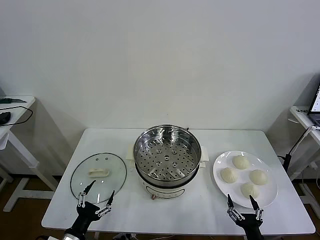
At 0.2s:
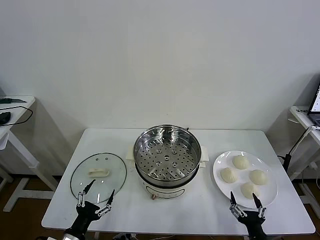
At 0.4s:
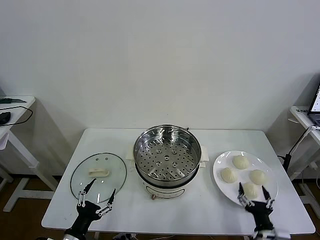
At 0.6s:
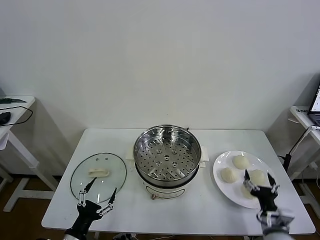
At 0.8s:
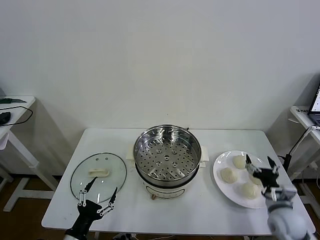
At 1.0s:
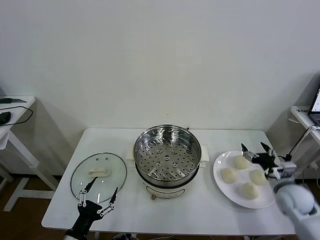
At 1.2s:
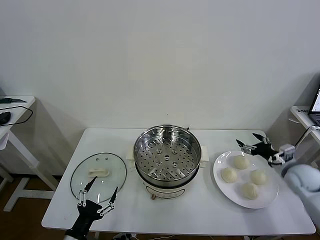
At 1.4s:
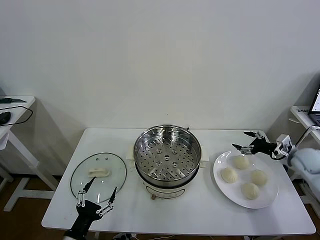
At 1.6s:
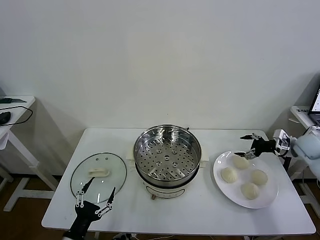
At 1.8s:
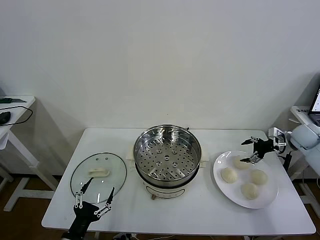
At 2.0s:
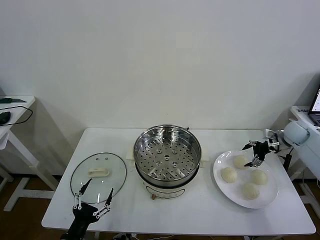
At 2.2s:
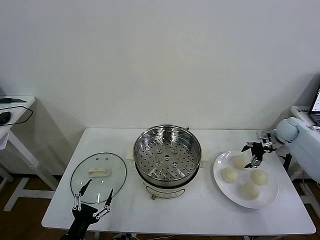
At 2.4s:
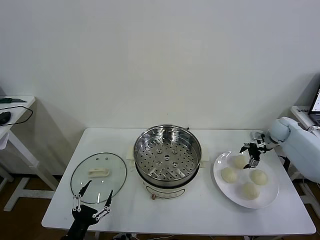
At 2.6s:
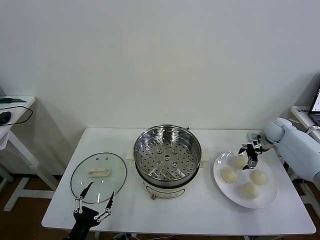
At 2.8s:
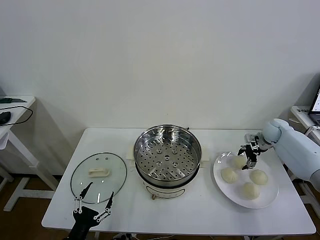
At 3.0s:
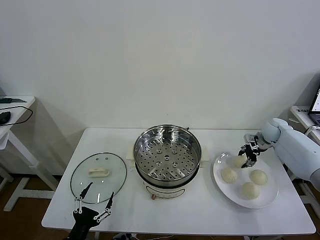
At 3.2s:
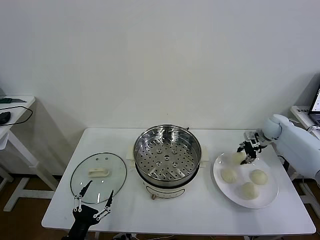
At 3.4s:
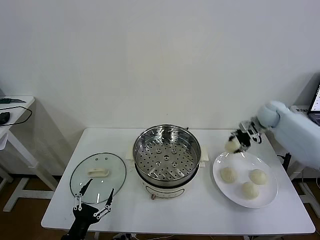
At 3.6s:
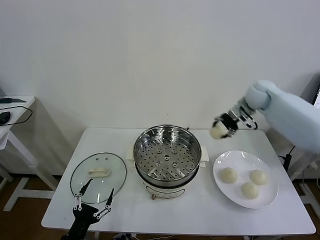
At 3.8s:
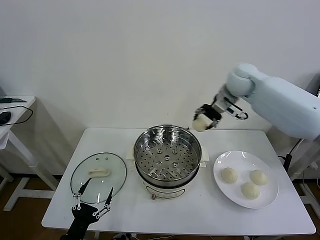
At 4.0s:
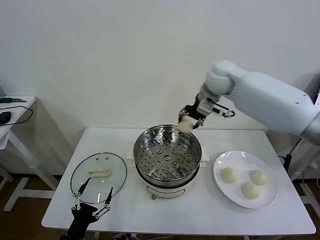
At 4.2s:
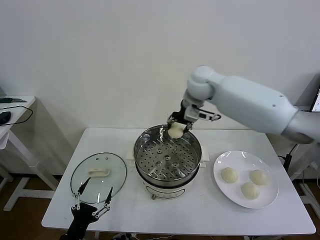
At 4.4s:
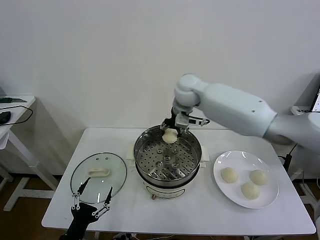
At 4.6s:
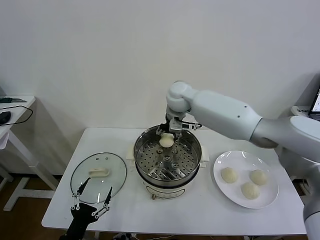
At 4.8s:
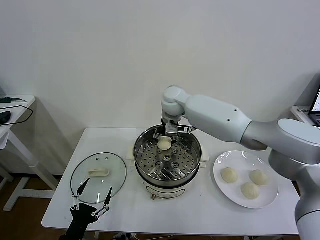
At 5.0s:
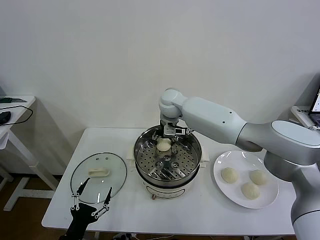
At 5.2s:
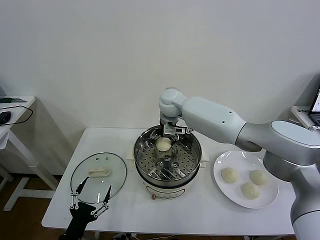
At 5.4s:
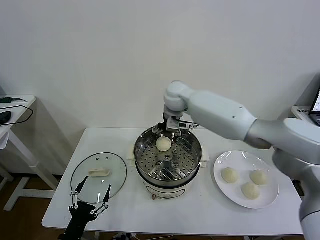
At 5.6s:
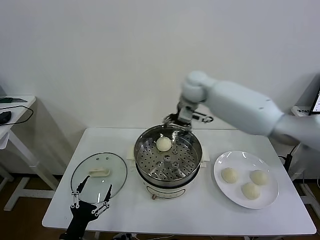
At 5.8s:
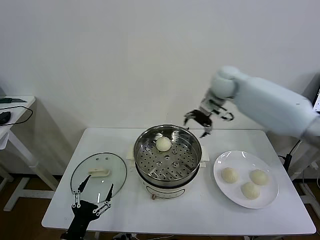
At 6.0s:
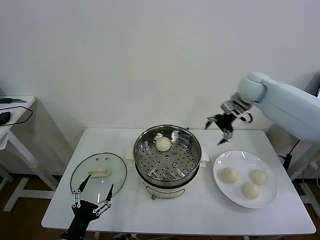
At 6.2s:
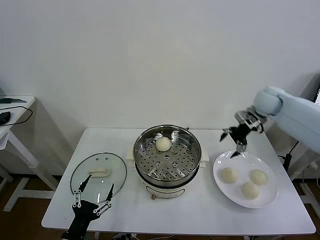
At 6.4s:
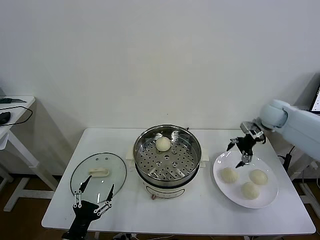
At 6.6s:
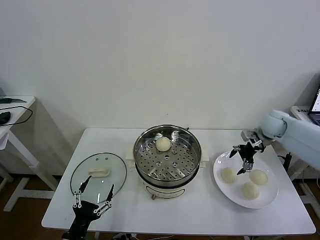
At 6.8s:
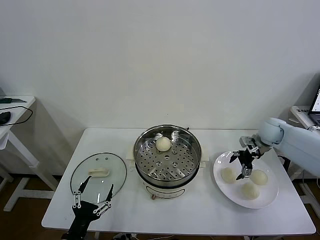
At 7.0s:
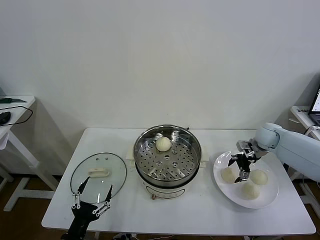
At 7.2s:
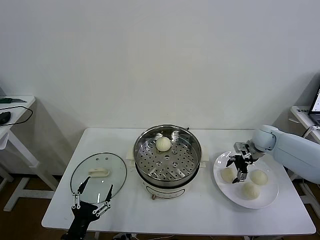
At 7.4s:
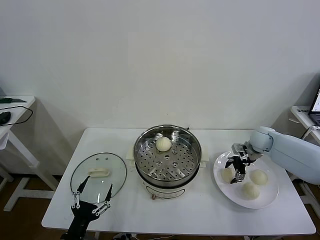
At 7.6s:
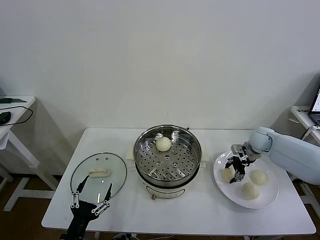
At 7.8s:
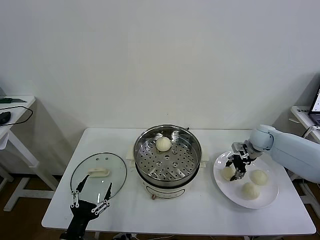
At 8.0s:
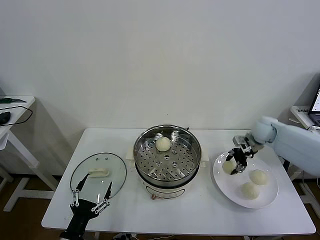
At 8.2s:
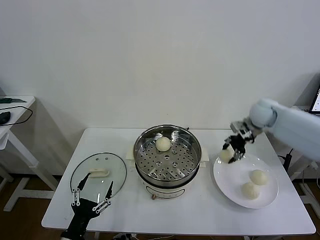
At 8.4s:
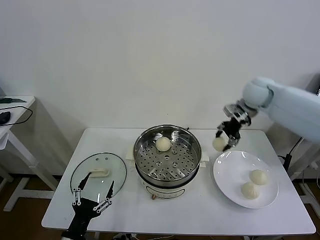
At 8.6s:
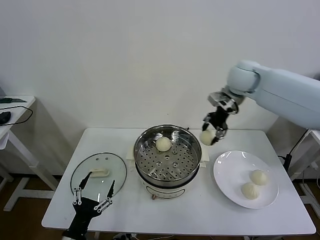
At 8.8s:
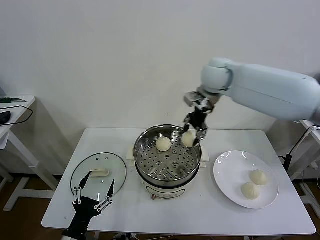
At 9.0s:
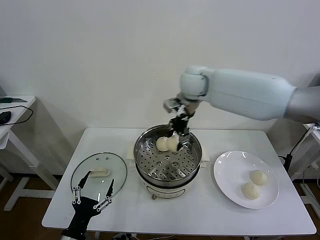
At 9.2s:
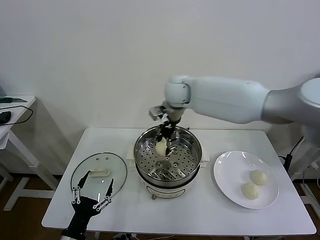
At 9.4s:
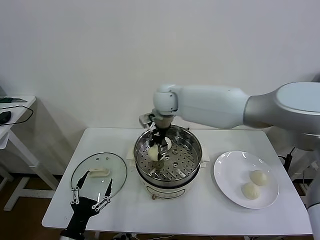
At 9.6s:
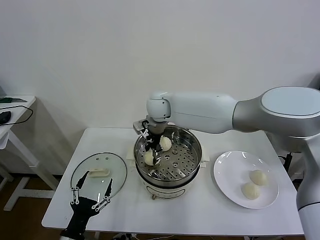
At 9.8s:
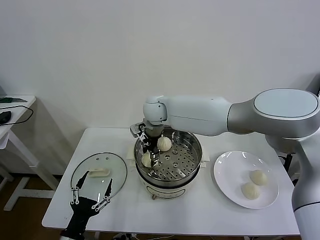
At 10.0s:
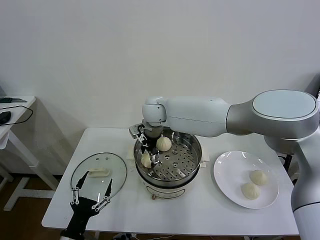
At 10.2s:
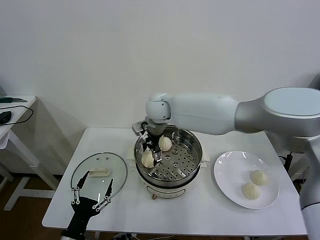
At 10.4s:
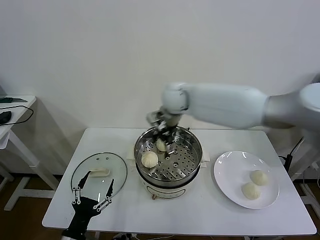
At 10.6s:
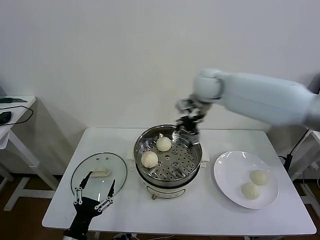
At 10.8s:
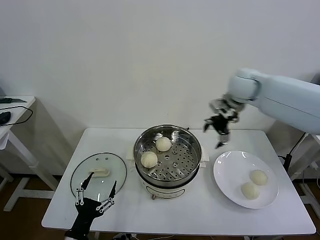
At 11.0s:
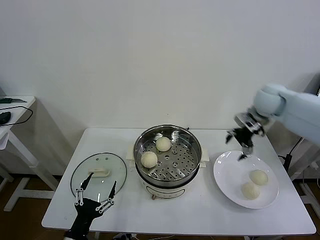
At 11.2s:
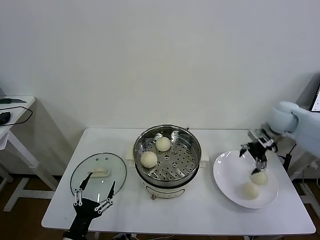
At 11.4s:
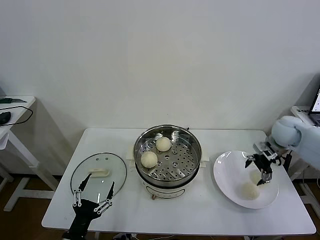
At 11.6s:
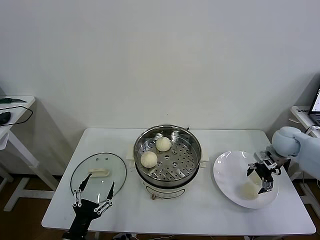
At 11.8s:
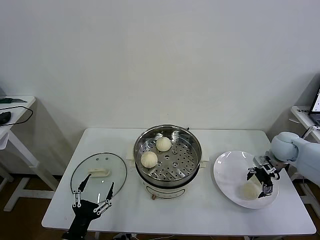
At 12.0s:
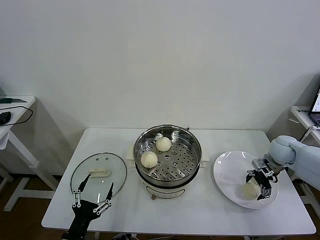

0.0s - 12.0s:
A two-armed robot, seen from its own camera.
Task of the whole recording: take steamed baozi put them in steamer then cover it.
Step, 0.0s - 3.0s: Grasp the baozi in the plate with right gripper.
Step, 3.2s - 5.0s: Place the baozi on the steamer with right gripper.
Step, 5.2s - 7.6s: Grasp the baozi in the plate with right gripper.
Step, 7.8s - 10.0s: Place the baozi on the steamer with right gripper.
1.6s - 3.0s: The right gripper moves forward and to the left, approximately 10 cm, and closes.
3.0s - 4.4s: The right gripper shifts roughly 40 cm to the left and upward.
4.4s - 6.0s: The right gripper goes some 25 cm to the right, and opens up.
6.0s - 7.6s: The right gripper shifts roughly 15 cm downward, and closes up.
7.6s - 9.0s: The right gripper travels to the left and upward by approximately 40 cm.
9.0s - 10.4s: The right gripper travels to the left and back again, some 10 cm each way, and opens.
10.4s - 12.0s: The right gripper goes roughly 40 cm to the right and downward.

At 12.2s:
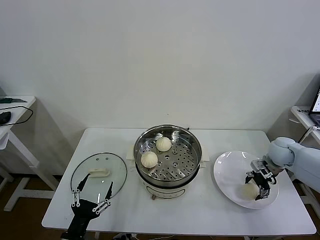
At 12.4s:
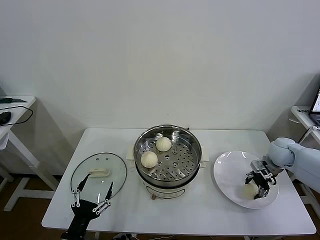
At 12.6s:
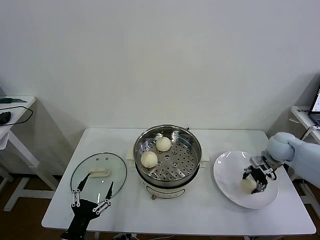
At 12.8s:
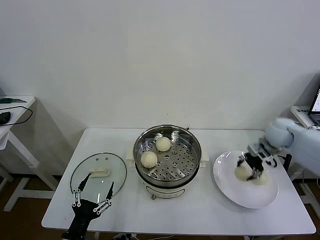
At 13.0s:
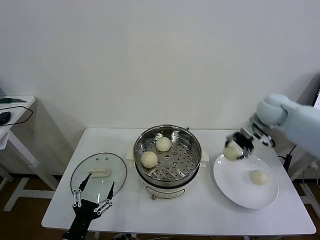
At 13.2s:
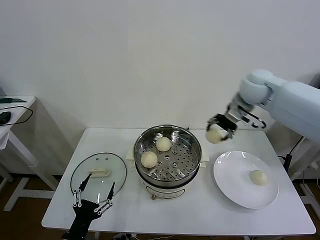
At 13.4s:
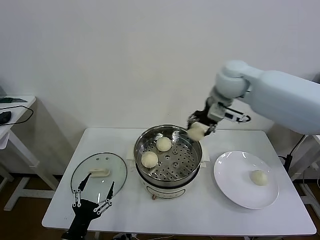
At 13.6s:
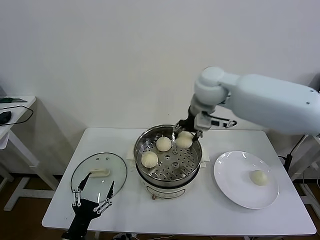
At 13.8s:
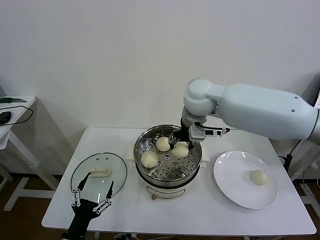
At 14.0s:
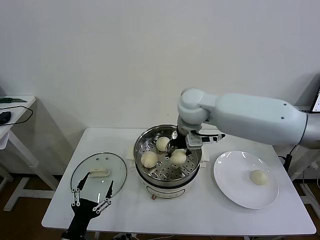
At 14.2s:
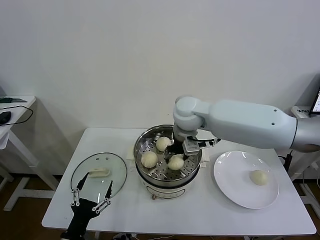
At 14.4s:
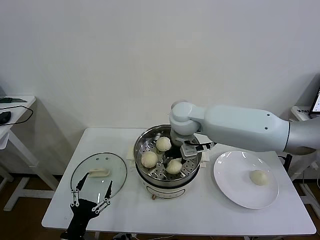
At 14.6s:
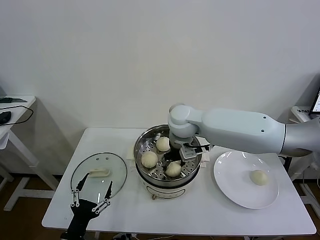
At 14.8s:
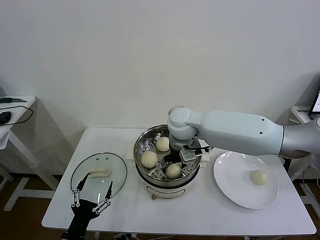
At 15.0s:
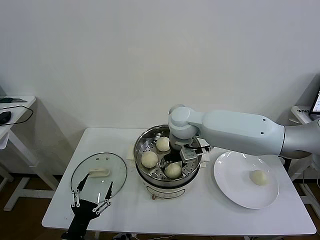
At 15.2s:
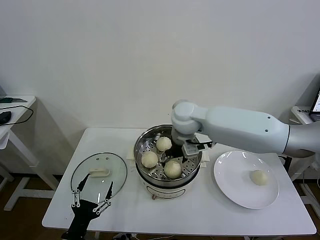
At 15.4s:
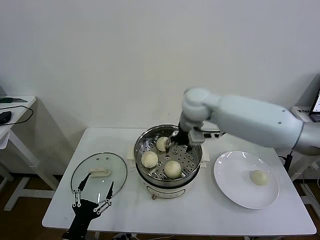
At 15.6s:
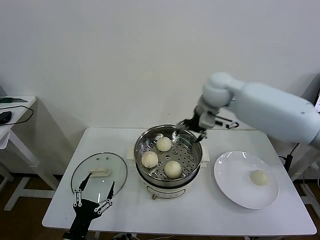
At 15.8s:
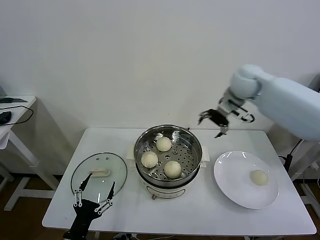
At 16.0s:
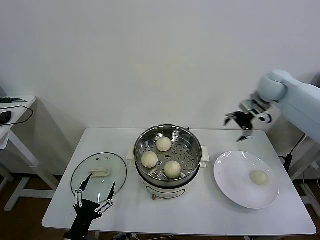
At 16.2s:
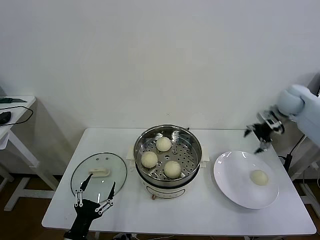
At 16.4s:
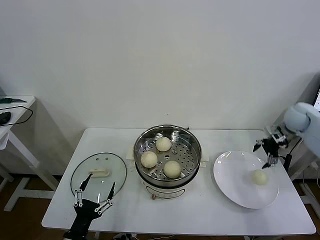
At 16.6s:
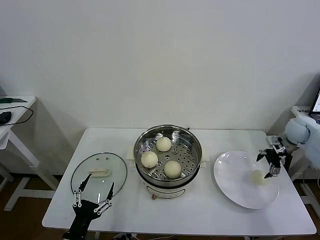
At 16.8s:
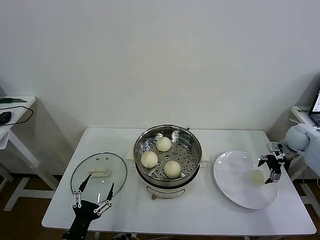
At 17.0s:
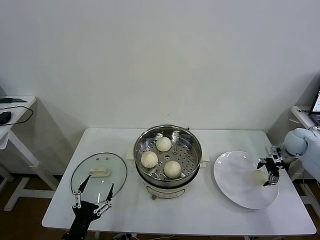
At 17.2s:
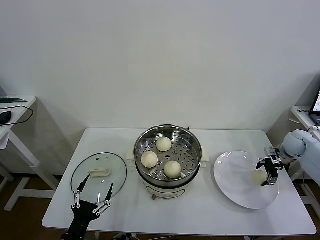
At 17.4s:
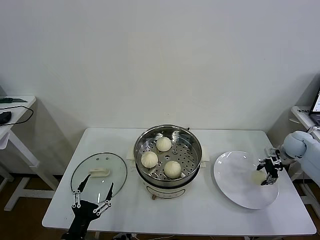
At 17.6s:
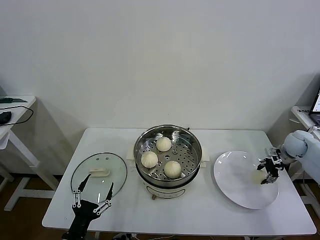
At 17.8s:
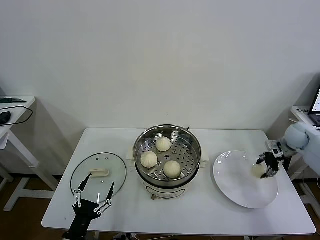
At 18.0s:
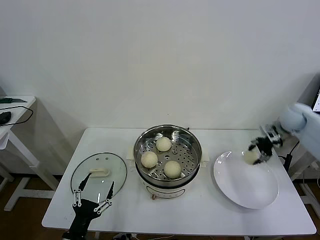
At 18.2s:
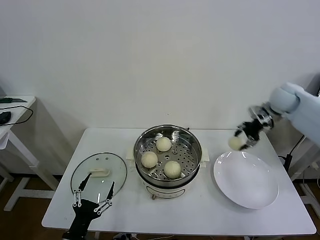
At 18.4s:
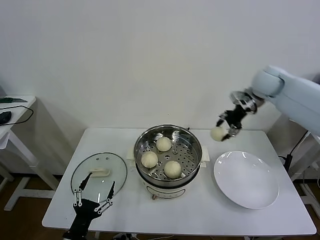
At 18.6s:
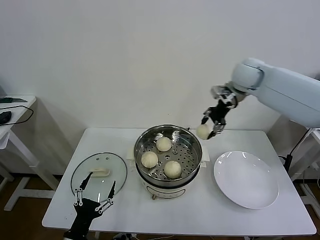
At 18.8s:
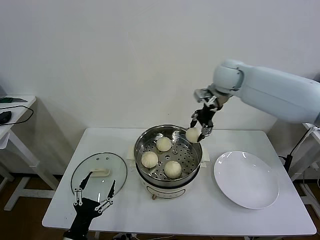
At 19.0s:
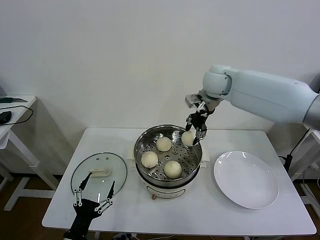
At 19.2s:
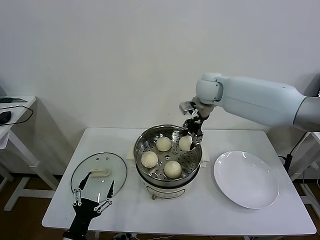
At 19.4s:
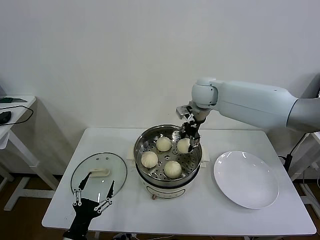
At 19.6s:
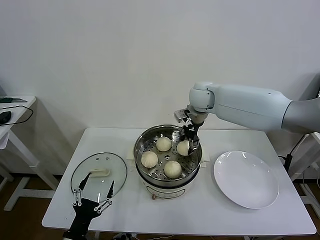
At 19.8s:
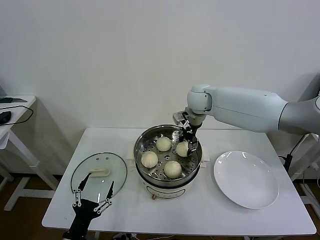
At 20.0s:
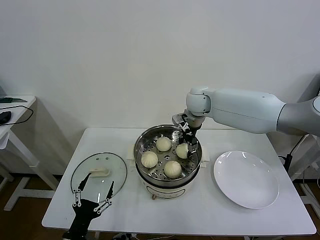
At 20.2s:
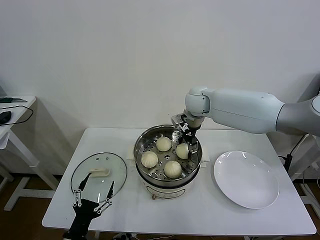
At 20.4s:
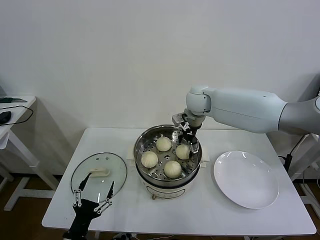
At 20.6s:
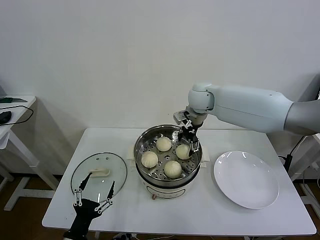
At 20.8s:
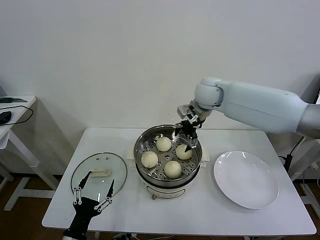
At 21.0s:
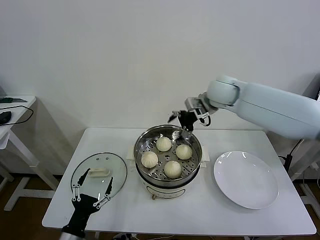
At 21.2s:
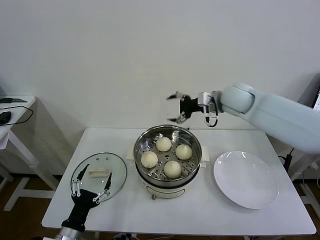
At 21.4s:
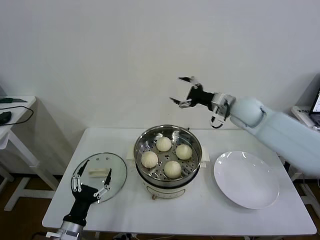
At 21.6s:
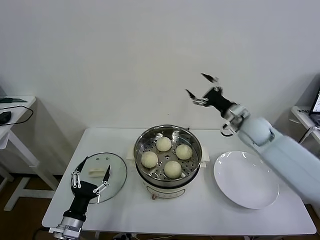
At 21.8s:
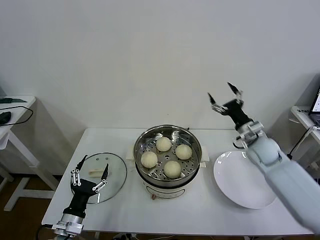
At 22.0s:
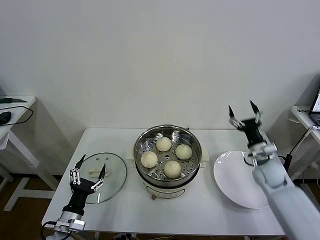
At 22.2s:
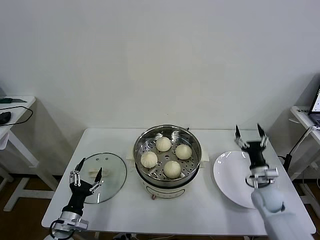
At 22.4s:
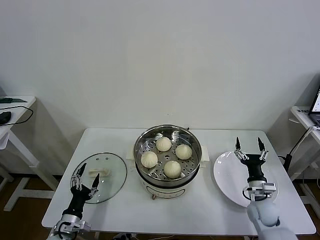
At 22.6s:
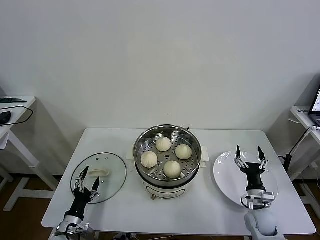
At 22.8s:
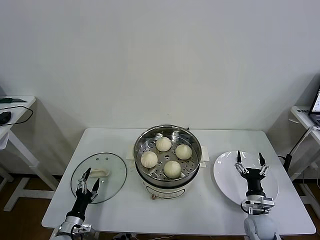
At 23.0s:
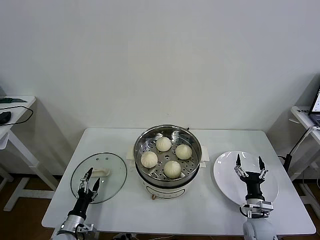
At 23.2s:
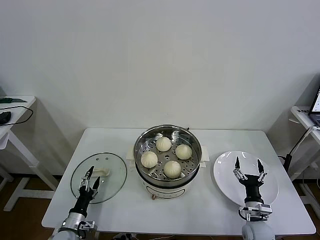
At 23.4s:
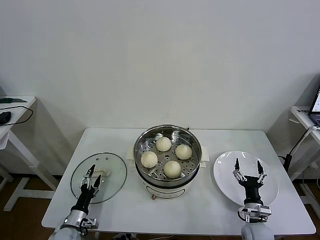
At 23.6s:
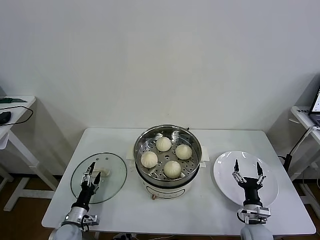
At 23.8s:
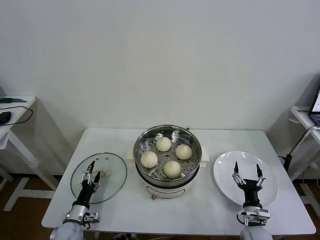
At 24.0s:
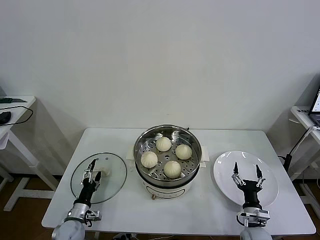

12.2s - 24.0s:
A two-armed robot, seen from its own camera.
Task of the whole recording: take steamed baozi put them in steamer then cover it.
Step, 12.6s - 14.8s: Place the baozi on the steamer with right gripper.
Step, 15.0s - 17.4s: Grasp the baozi in the plate with right gripper.
Step, 17.6s - 20.2s: Place the baozi on the steamer with right gripper.
12.2s - 13.6s: The right gripper is displaced to the left and upward by roughly 40 cm.
13.6s - 15.2s: The right gripper heads downward, covering about 10 cm, and opens up.
15.2s - 16.6s: The right gripper moves to the right, about 40 cm.
16.6s - 18.2s: The right gripper is displaced upward and to the left by approximately 15 cm, and closes up.
18.2s - 19.6s: The right gripper is displaced to the left by about 25 cm.
19.6s - 21.0s: The right gripper shifts roughly 5 cm to the right, and opens.
21.0s - 22.6s: The left gripper moves downward, forward and to the left, some 10 cm; the right gripper is displaced downward, backward and to the right by roughly 50 cm.
22.6s - 24.0s: The right gripper moves backward, about 5 cm. Meanwhile the left gripper travels forward by approximately 5 cm.
